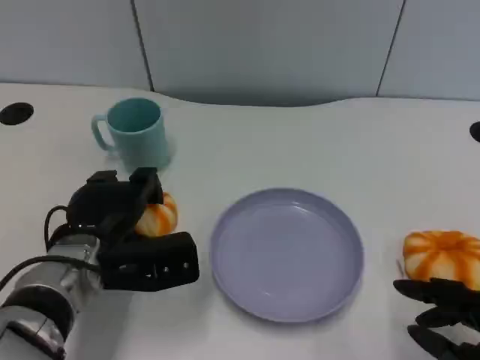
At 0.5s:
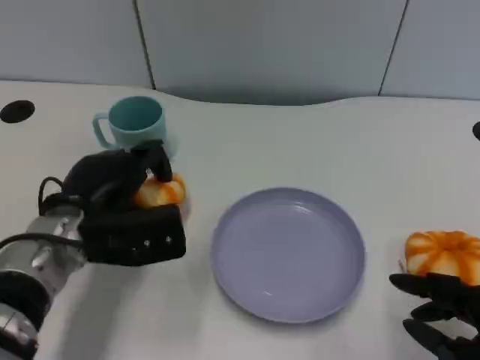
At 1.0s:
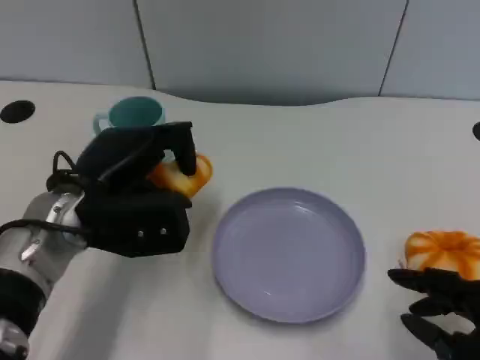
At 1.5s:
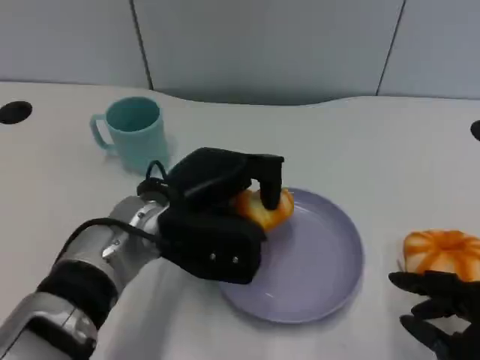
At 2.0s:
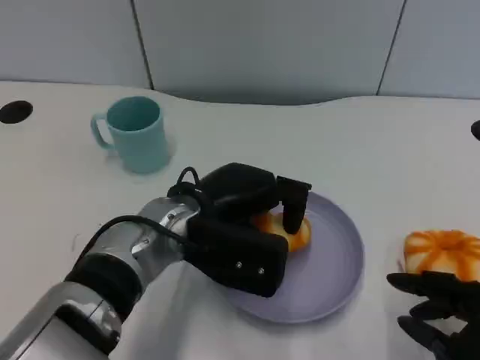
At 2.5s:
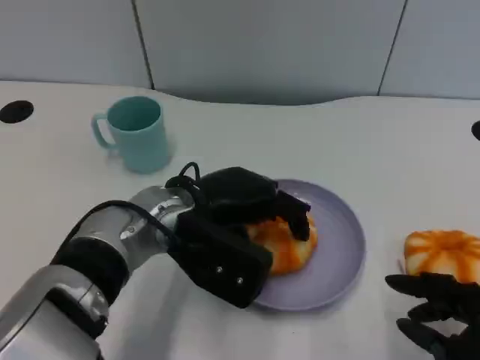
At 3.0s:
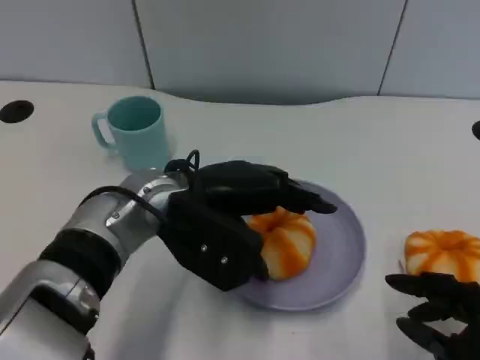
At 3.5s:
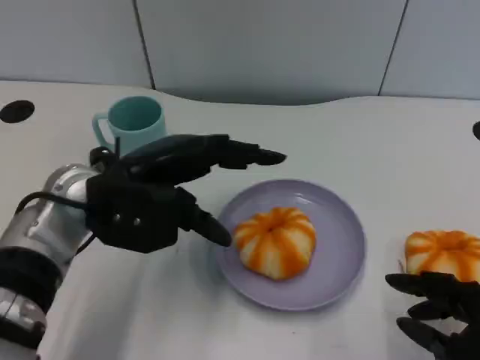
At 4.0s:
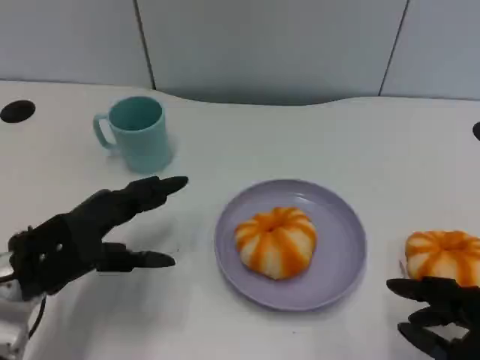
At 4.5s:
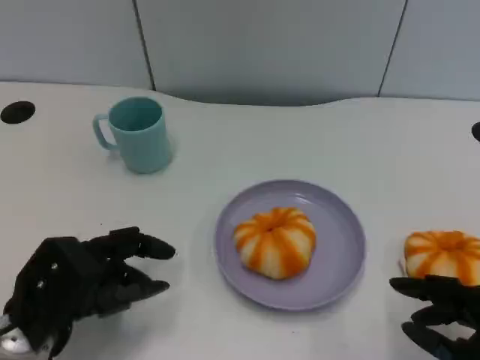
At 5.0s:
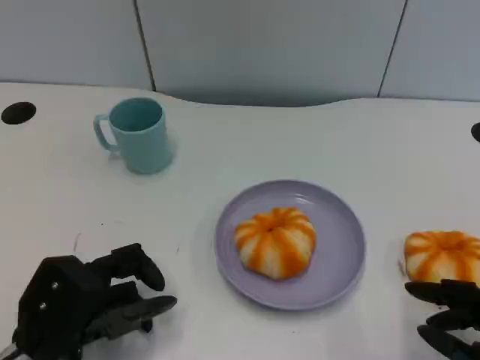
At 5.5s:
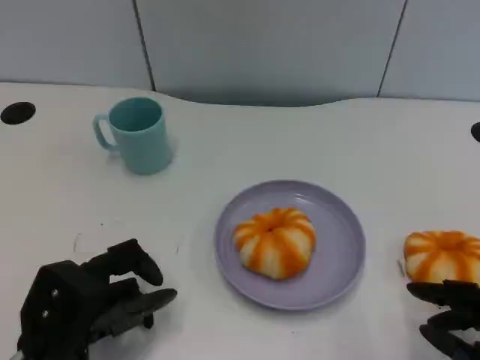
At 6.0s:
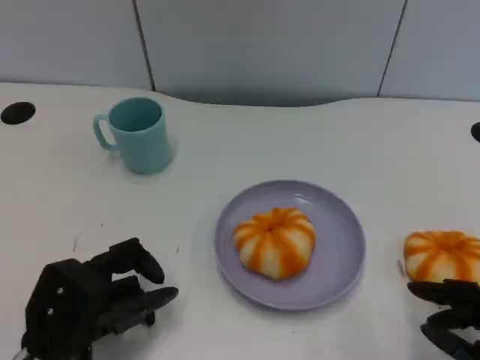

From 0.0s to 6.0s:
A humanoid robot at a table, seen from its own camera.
Task of the whole recording: Grasp the bread from the table and place it into the plate.
From 0.0s to 2.0s: The left hand is displaced to the right and upward by roughly 10 cm.
From 2.0s to 4.0s: The left hand moves to the left, roughly 15 cm.
From 4.0s to 6.0s: The left hand heads backward, covering roughly 5 cm.
